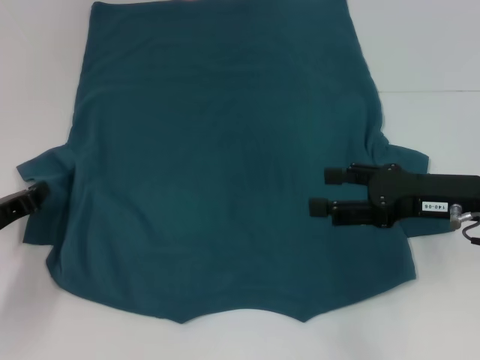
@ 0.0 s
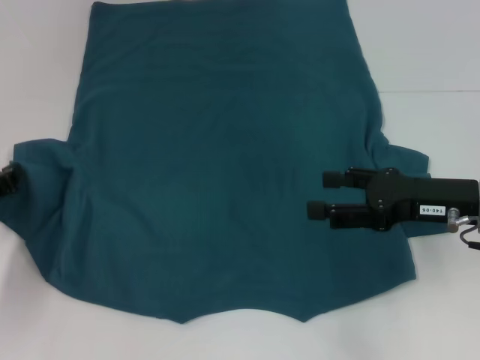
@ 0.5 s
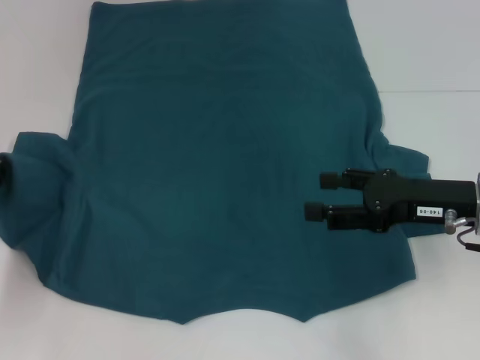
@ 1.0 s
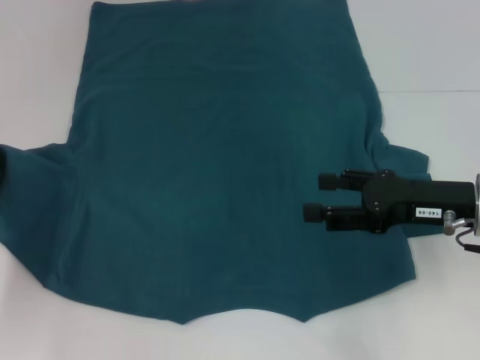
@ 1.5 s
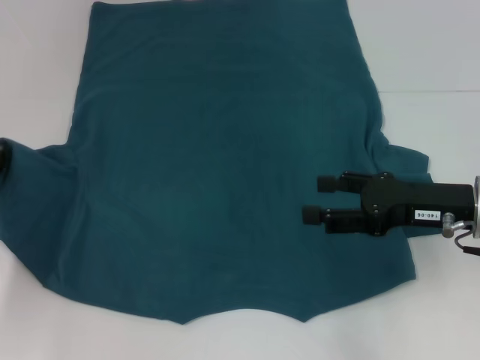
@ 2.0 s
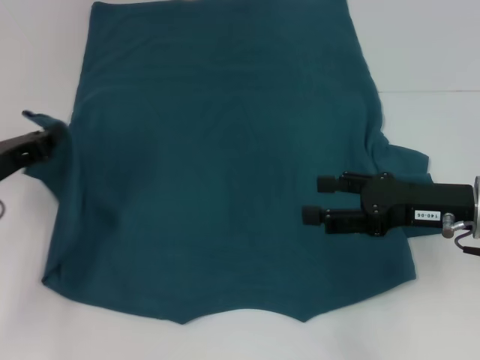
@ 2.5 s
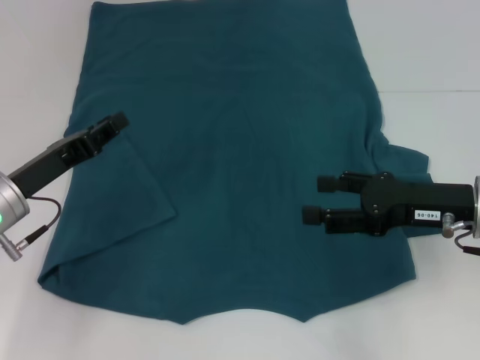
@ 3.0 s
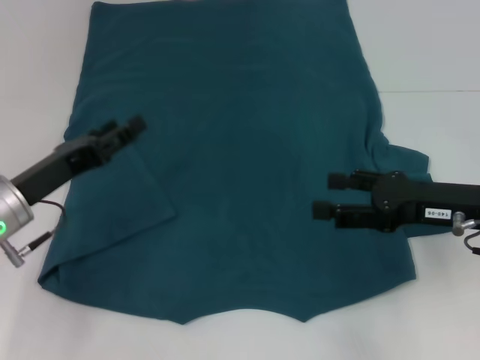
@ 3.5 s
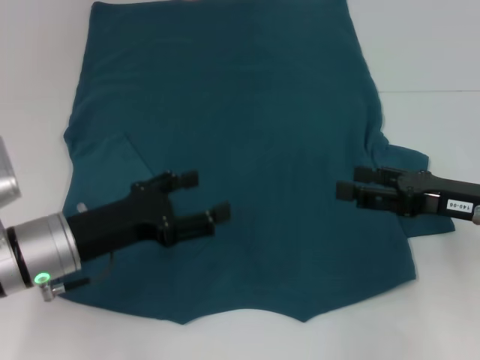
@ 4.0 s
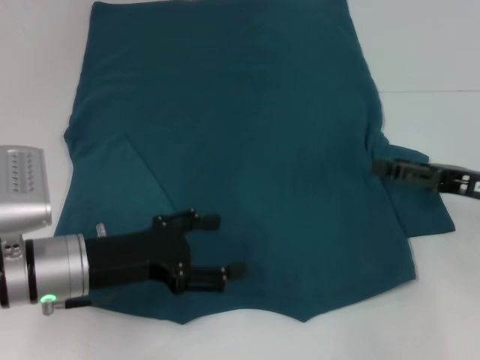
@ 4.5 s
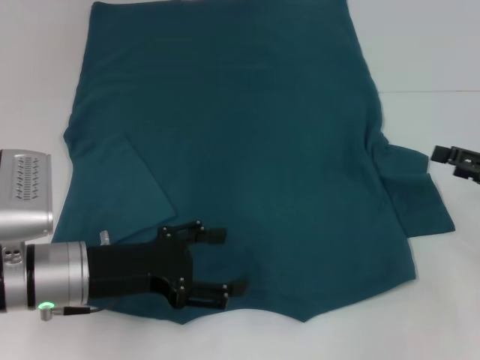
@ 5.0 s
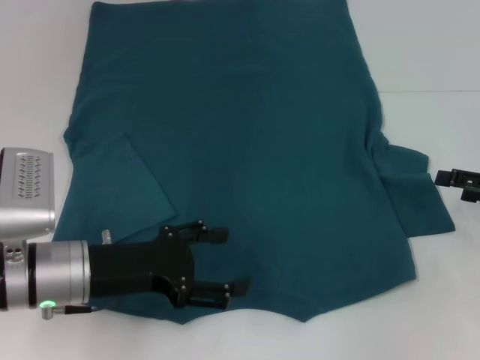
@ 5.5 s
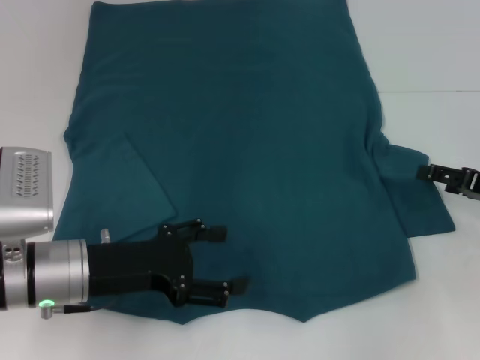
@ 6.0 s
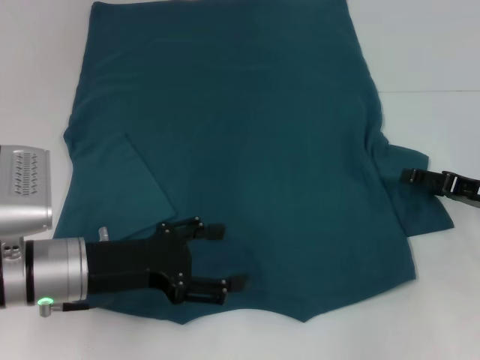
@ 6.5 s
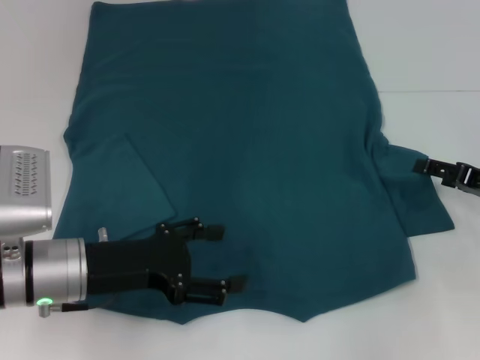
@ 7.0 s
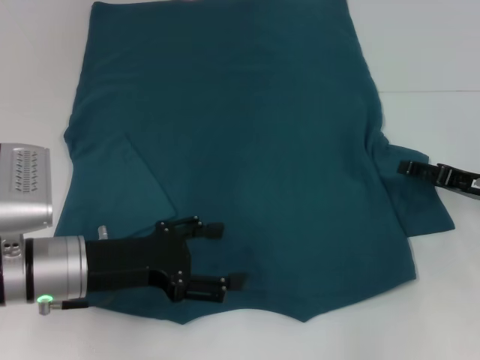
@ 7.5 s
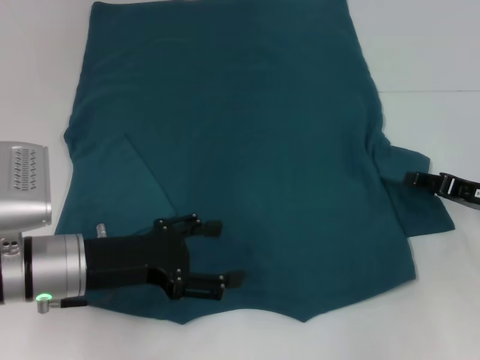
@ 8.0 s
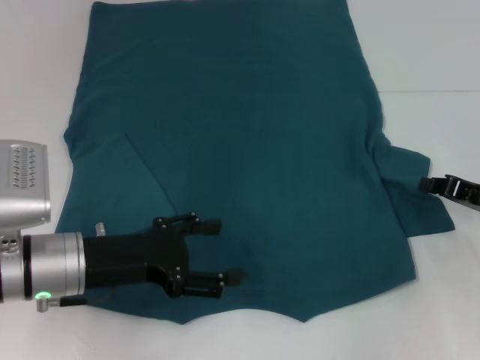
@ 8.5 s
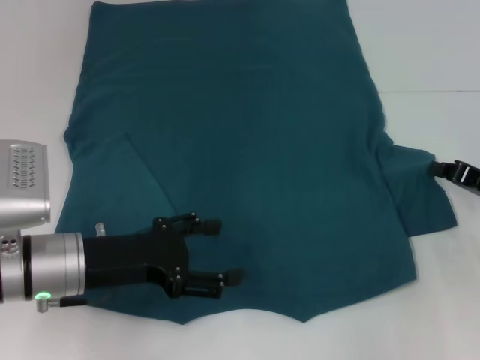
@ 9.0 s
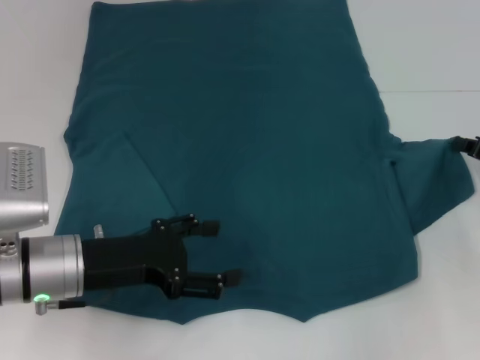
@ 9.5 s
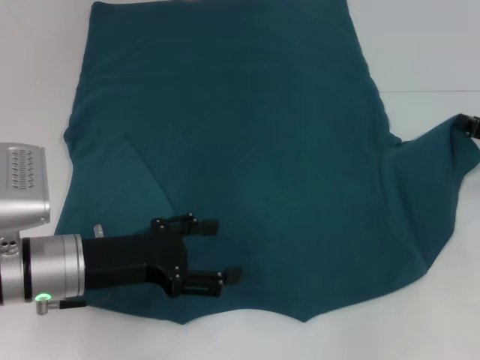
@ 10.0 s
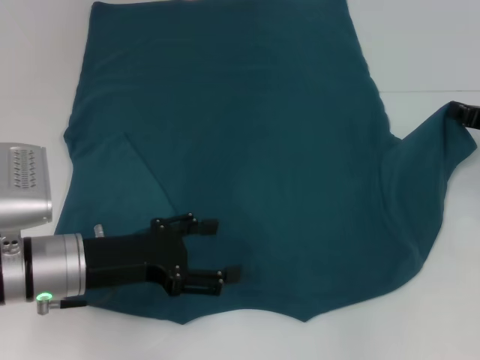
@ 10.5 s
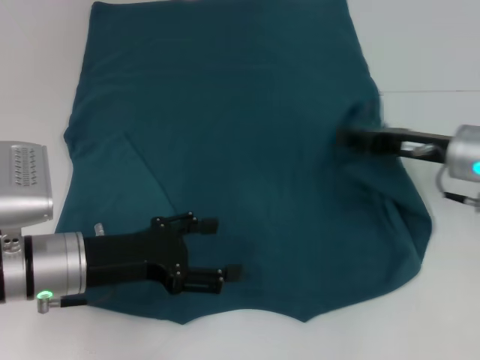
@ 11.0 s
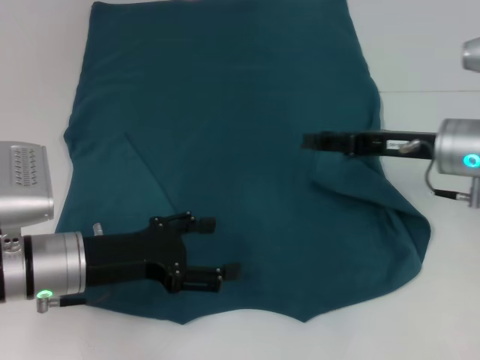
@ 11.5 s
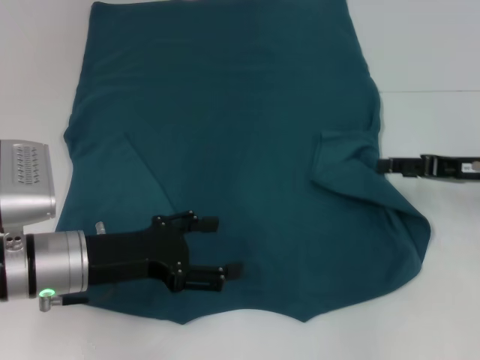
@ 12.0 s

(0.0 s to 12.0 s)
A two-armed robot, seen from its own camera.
Step, 0.0 s - 3.0 s: Fold the bottom left sleeve with your left hand.
0.0 s - 2.0 s: The left gripper ends up roughly 5 cm from where it was.
2.0 s - 4.0 s: The left gripper goes about 15 cm to the right, and opens its fingers.
4.0 s - 6.0 s: The right gripper heads to the right, covering roughly 5 cm.
6.0 s - 8.0 s: The grippers make only small movements.
8.0 s - 10.0 s: The right gripper moves approximately 5 cm, and closes its fingers.
10.0 s - 12.0 s: The right gripper travels to the left and back again, about 10 cm each way, and opens.

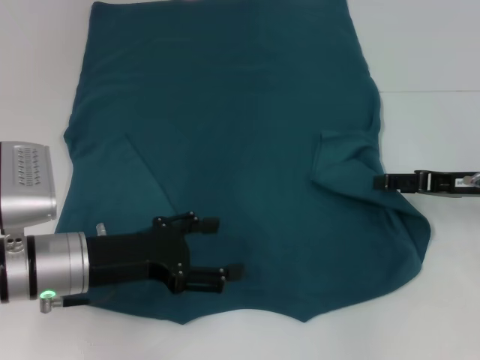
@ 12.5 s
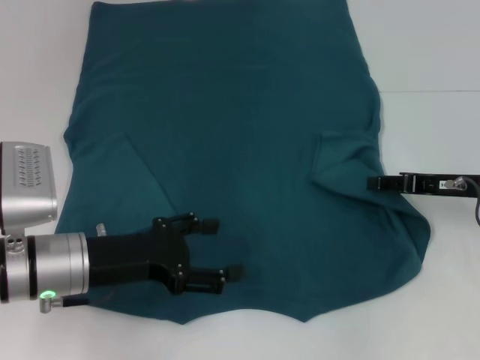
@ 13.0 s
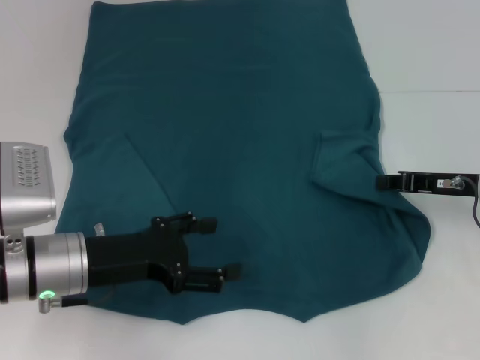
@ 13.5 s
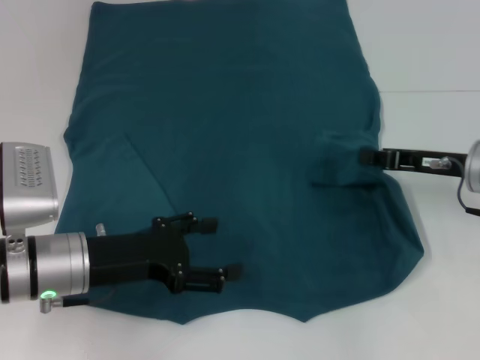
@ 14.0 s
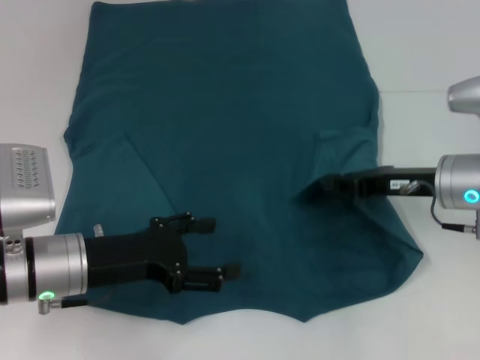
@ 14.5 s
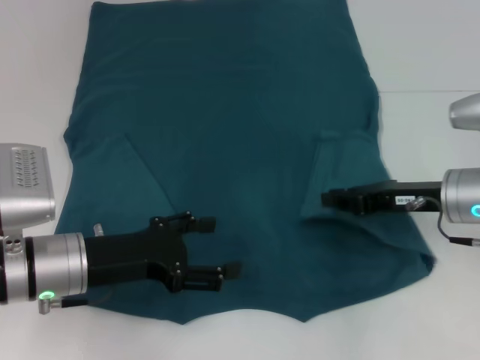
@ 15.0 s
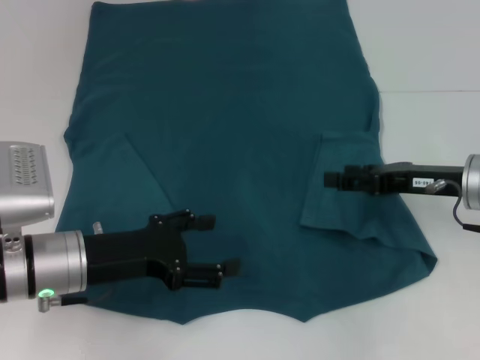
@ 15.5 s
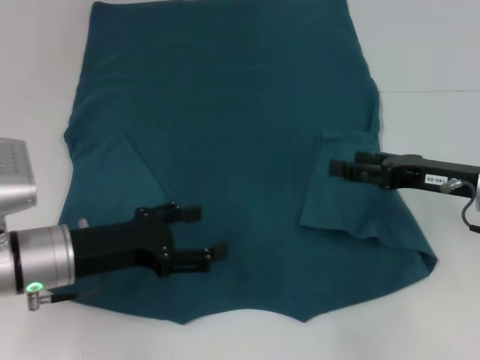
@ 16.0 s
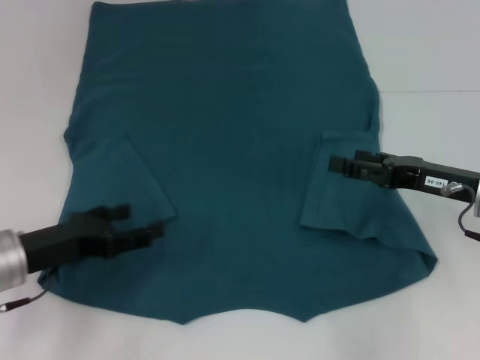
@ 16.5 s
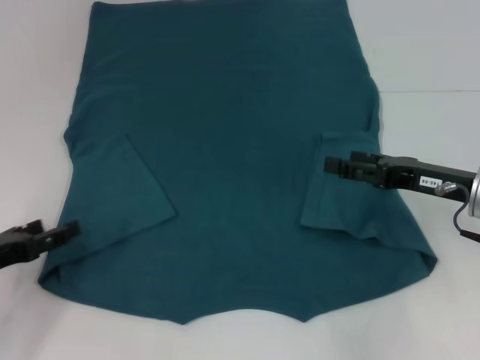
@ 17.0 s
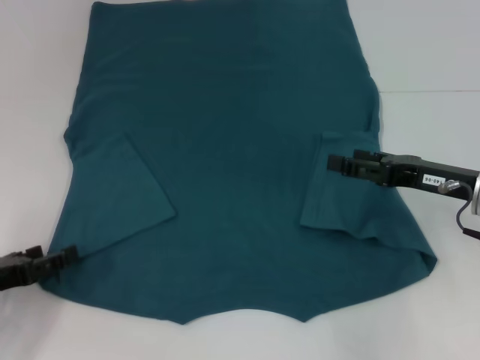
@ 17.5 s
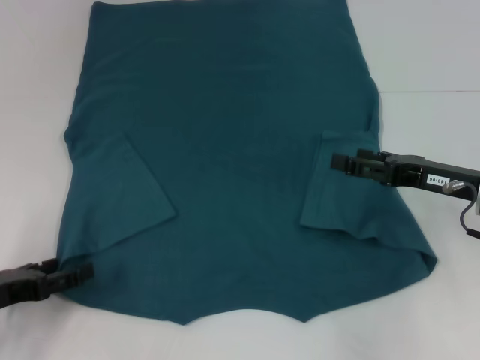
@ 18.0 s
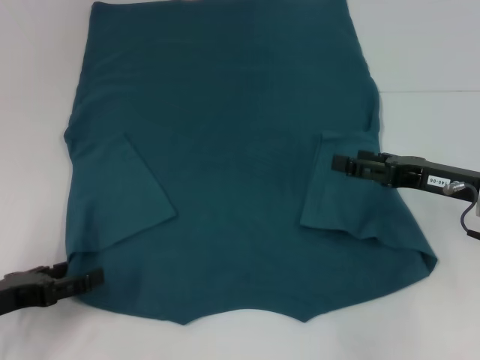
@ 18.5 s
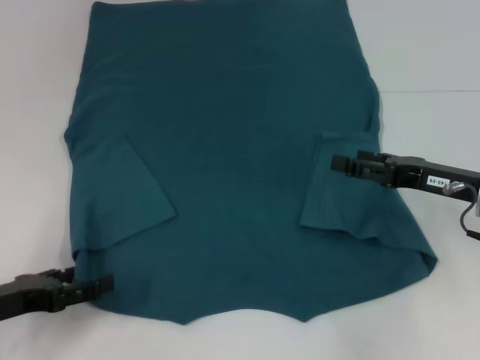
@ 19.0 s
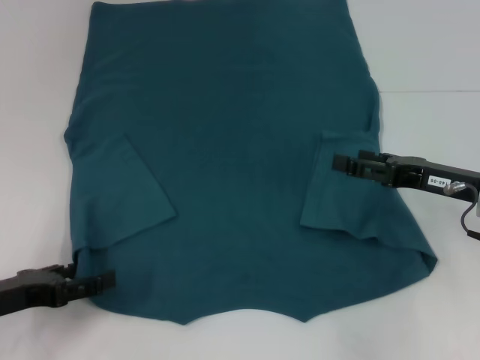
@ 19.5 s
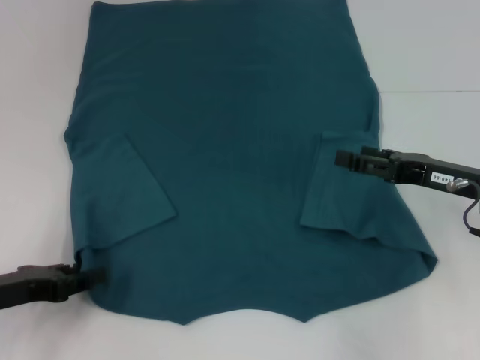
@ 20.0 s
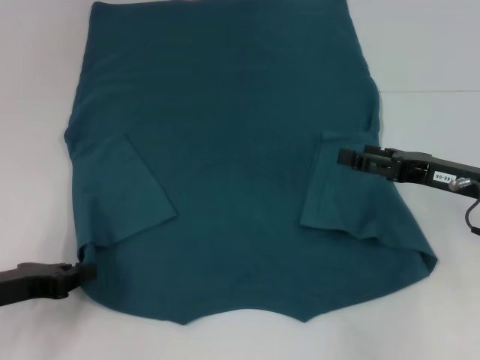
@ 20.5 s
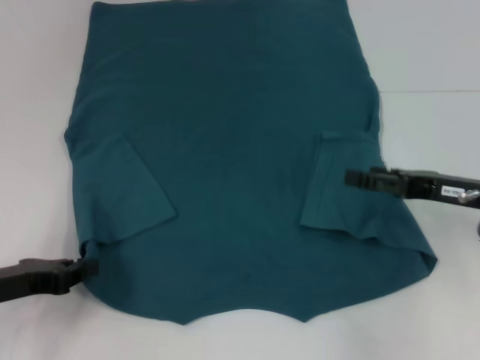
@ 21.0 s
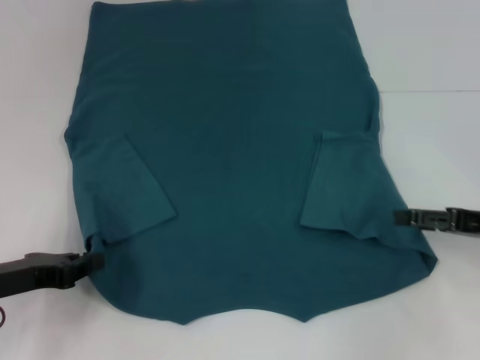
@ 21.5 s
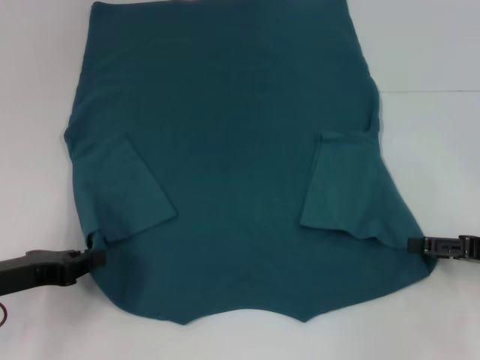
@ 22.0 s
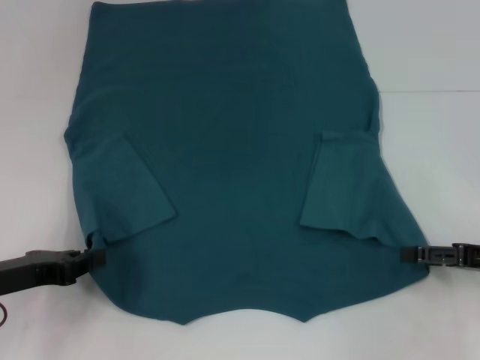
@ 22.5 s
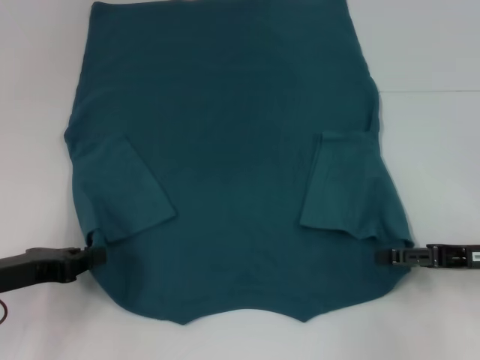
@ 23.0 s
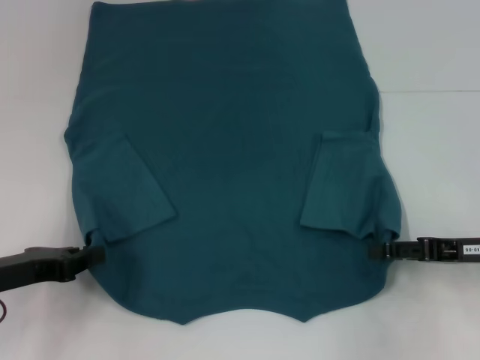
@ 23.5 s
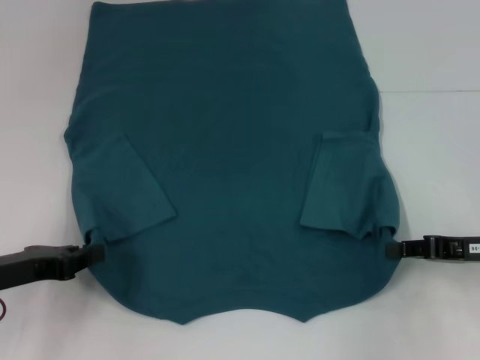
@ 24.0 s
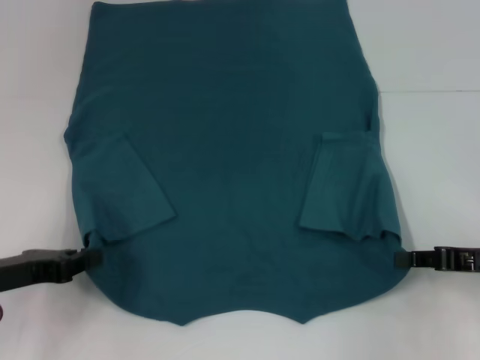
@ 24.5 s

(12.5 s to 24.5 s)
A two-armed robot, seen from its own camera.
Step, 12.5 s - 15.0 s: Fold the bottom right sleeve to the right.
Step, 15.5 s - 21.0 s: Grab the bottom left corner with your left hand.
12.5 s - 14.5 s: The right gripper shifts some 5 cm to the left, and closes up.
14.5 s - 16.5 s: The right gripper opens its fingers. The left gripper travels to the left by approximately 5 cm.
16.5 s - 18.5 s: The left gripper shifts about 5 cm to the left and backward.
18.5 s - 20.5 s: The left gripper closes up.
20.5 s - 22.5 s: The right gripper is displaced to the right by roughly 5 cm.
22.5 s - 24.5 s: The right gripper closes.

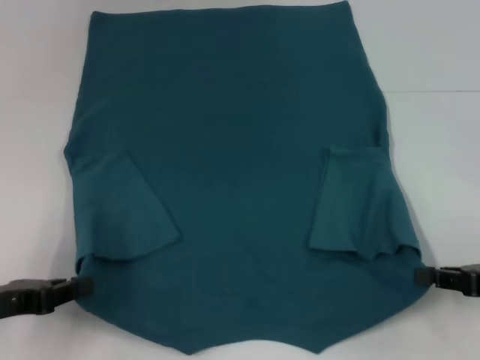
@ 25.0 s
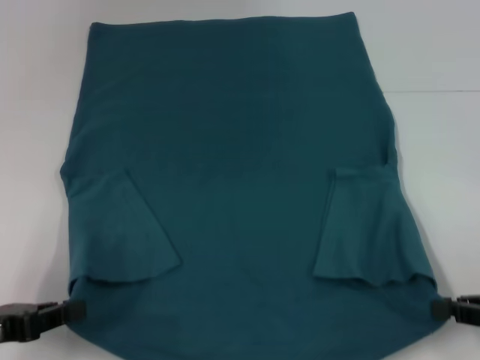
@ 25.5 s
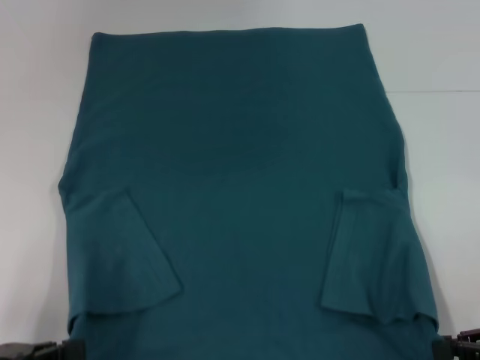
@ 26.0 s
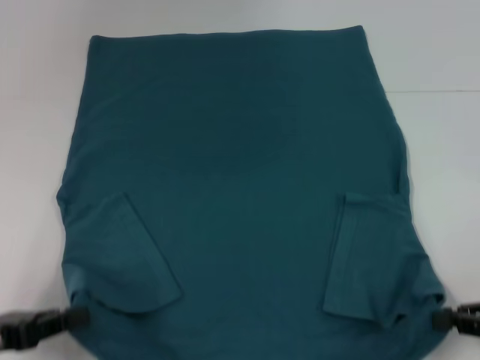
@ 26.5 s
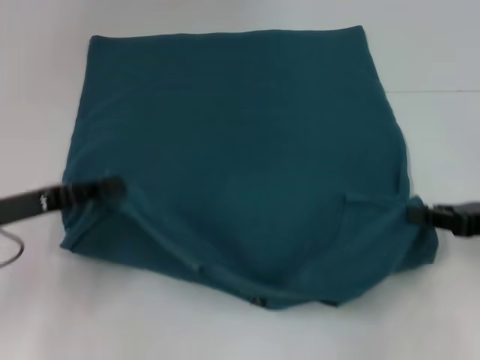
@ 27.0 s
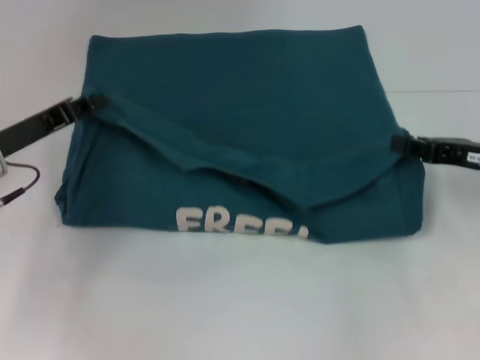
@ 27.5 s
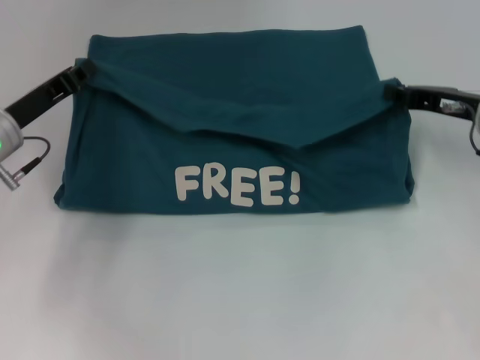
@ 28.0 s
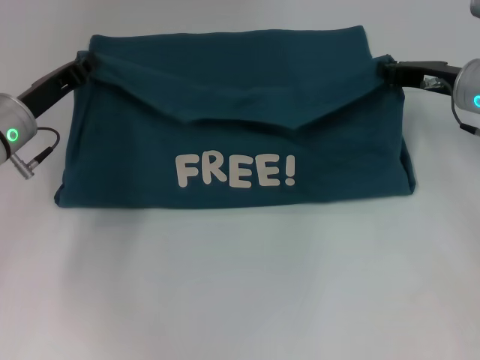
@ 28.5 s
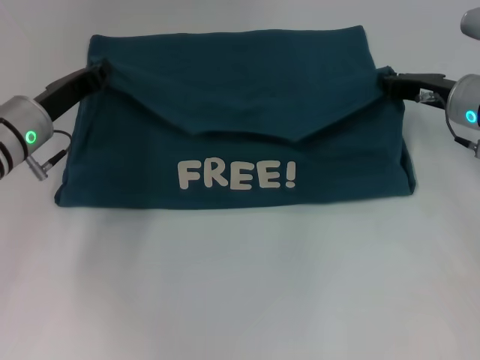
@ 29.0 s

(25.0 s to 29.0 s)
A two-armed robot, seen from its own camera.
25.0 s - 27.0 s: The left gripper moves forward, some 5 cm.
27.0 s - 29.0 s: The left gripper heads forward and to the right, covering approximately 10 cm. Meanwhile the right gripper travels forward and to the left by approximately 15 cm.
